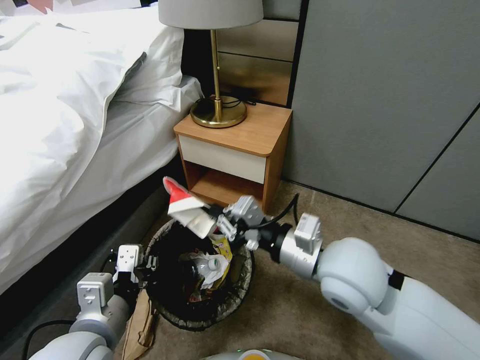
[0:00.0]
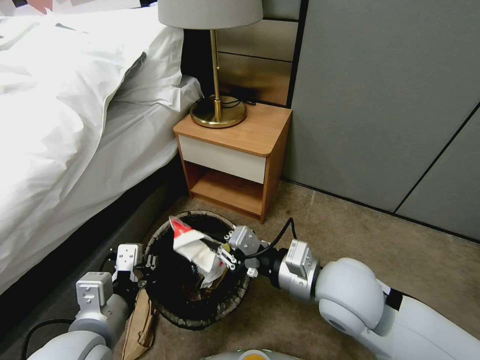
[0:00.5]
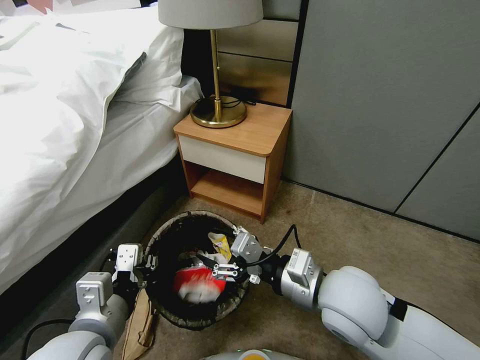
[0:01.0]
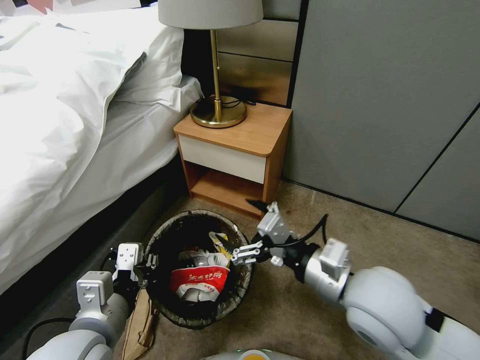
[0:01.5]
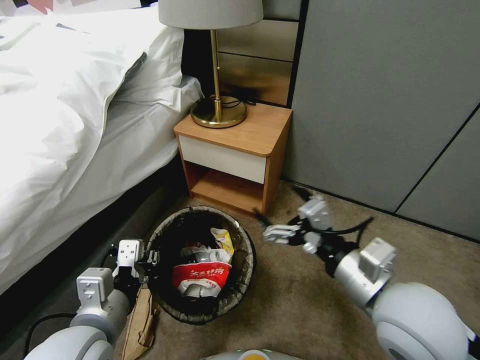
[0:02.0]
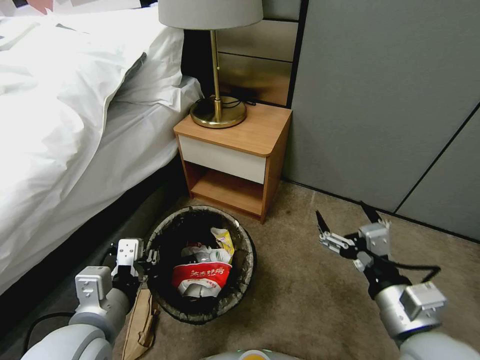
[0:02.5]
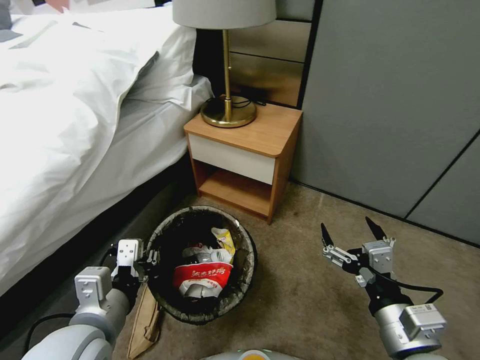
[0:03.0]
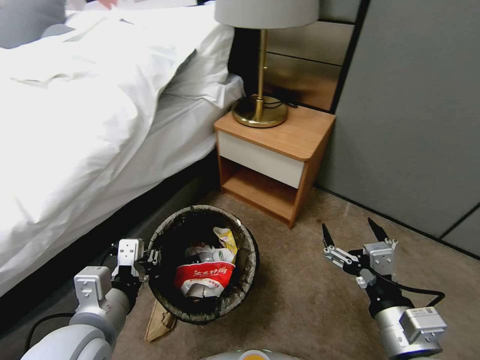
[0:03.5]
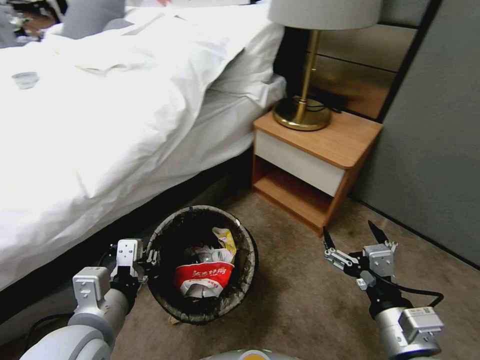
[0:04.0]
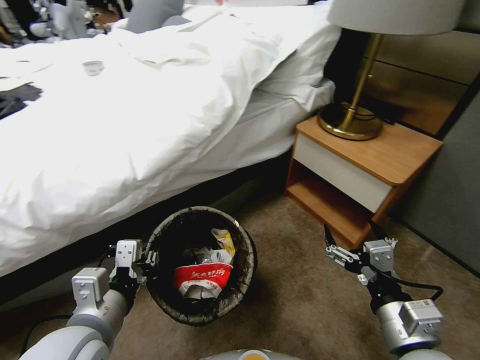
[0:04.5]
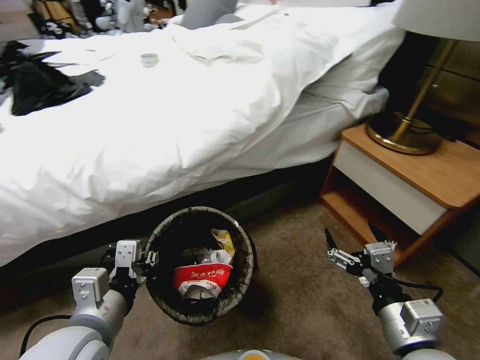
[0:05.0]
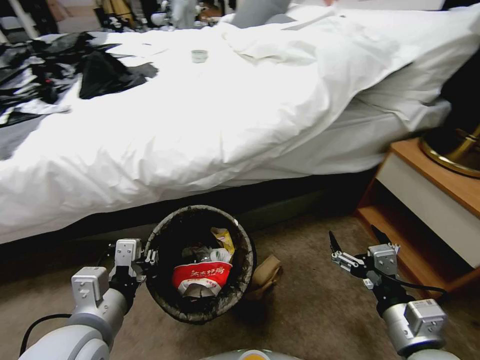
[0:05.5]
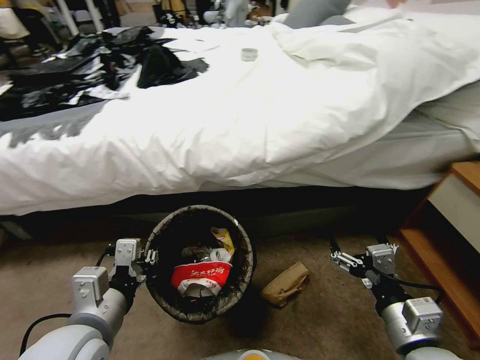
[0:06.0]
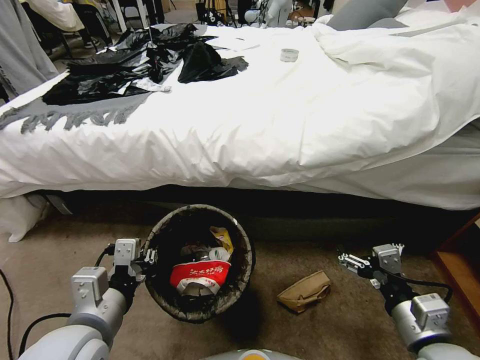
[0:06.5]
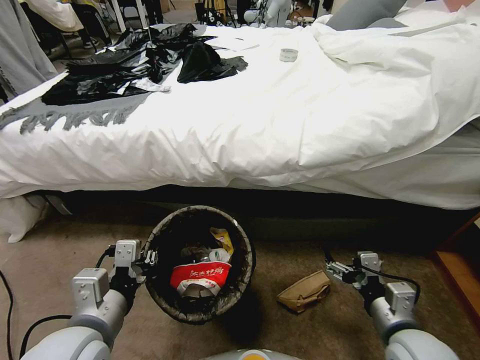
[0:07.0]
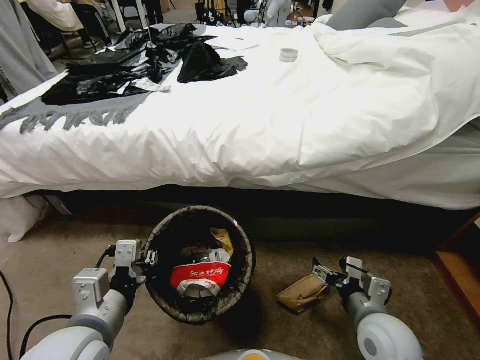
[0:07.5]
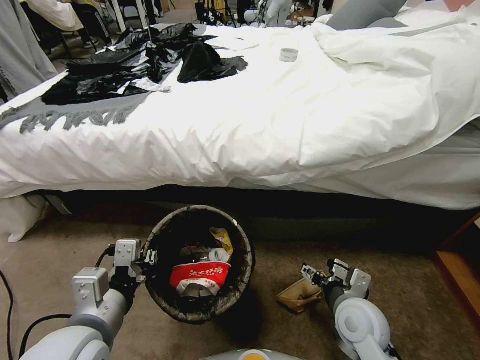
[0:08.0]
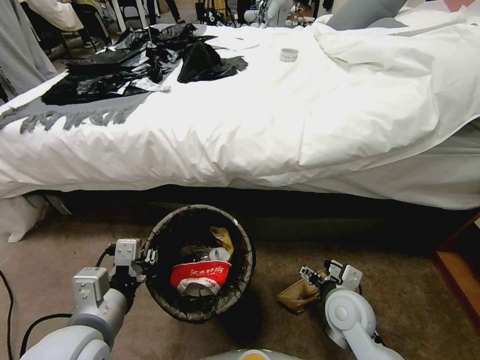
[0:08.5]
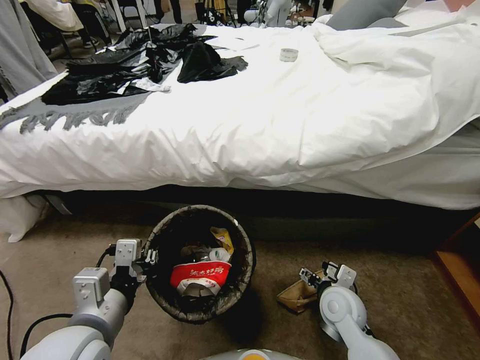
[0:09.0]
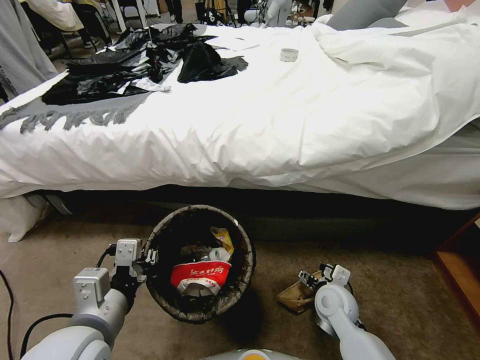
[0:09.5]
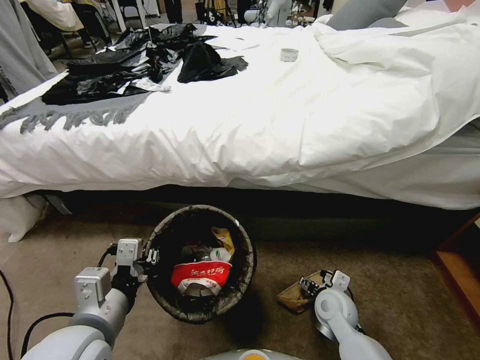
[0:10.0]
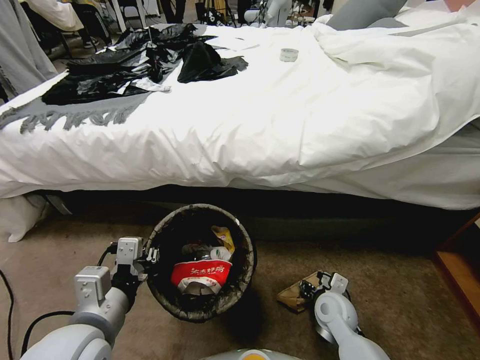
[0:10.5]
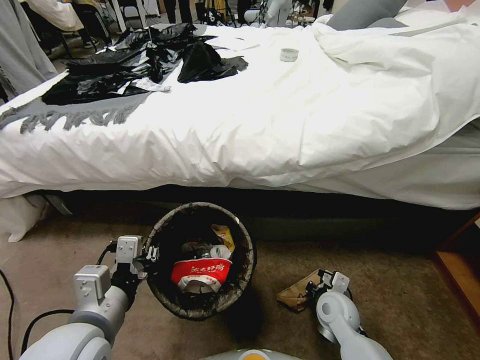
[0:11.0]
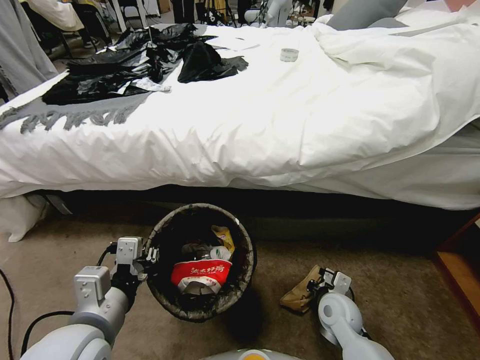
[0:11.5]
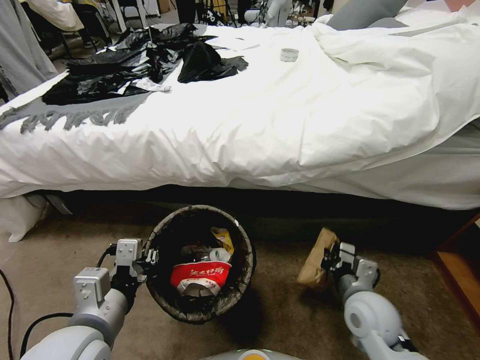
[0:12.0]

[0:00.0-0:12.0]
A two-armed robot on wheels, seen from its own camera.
Task of the whole recording: Pick up the trash bin, then pick up the garbage from the floor and place it into the trash bin.
0:00.0 to 0:02.0: The right gripper shifts roughly 10 cm backward and to the right, and opens up.
0:02.0 to 0:04.0: The right gripper is displaced downward and backward by about 10 cm.
0:06.0 to 0:08.0: The right gripper goes roughly 15 cm forward, downward and to the left.
0:08.0 to 0:10.0: The right gripper heads downward, covering about 10 cm.
0:10.0 to 0:12.0: The right gripper travels upward by about 10 cm, and closes up.

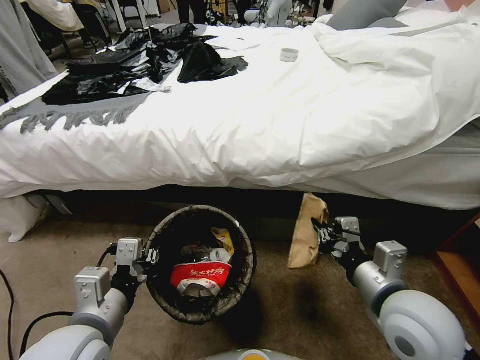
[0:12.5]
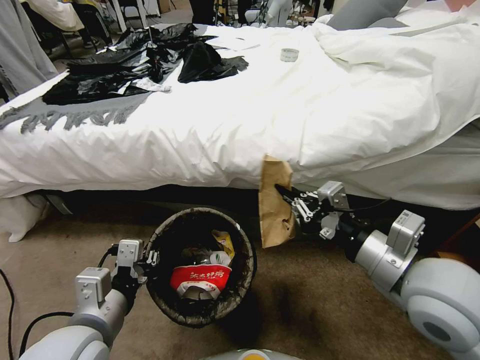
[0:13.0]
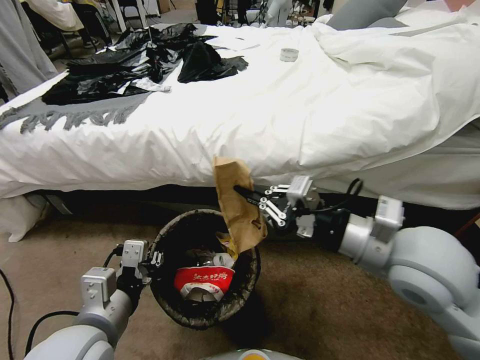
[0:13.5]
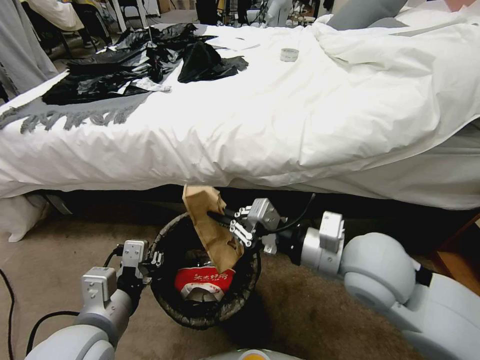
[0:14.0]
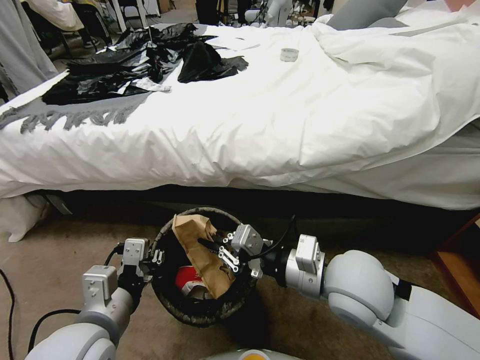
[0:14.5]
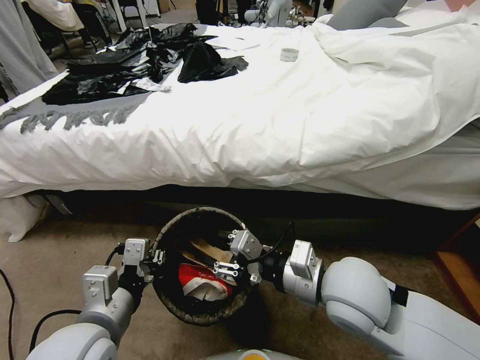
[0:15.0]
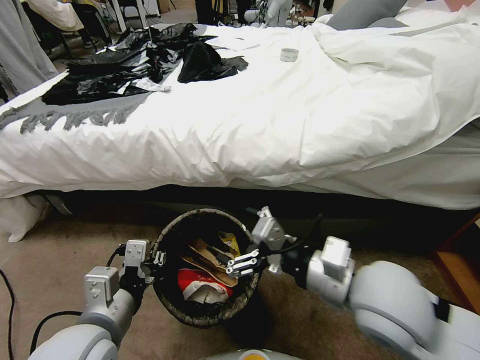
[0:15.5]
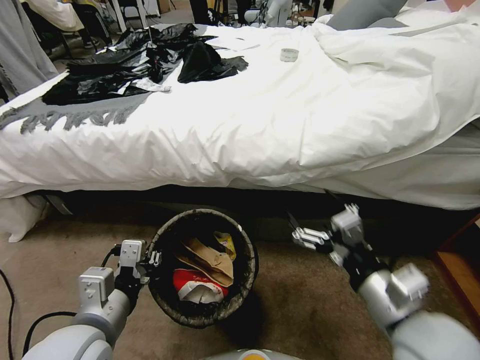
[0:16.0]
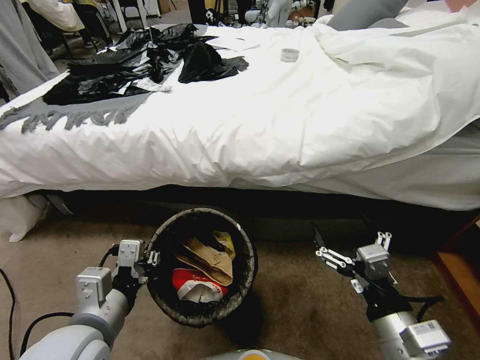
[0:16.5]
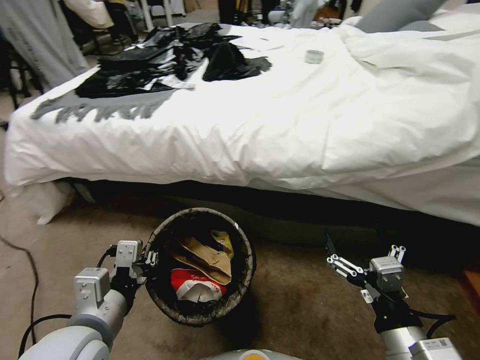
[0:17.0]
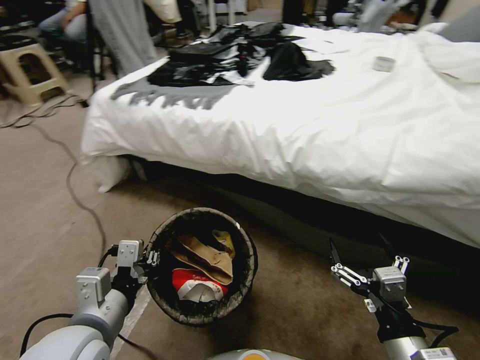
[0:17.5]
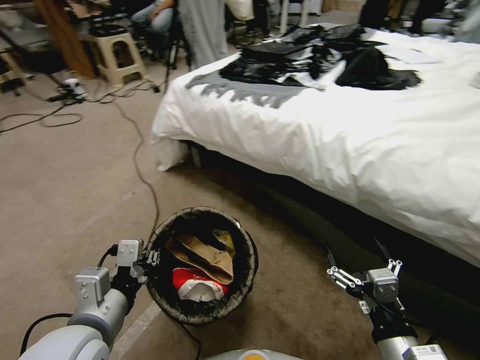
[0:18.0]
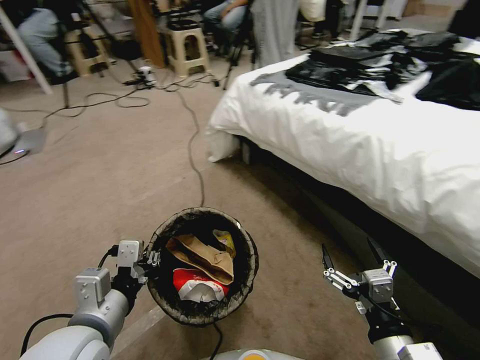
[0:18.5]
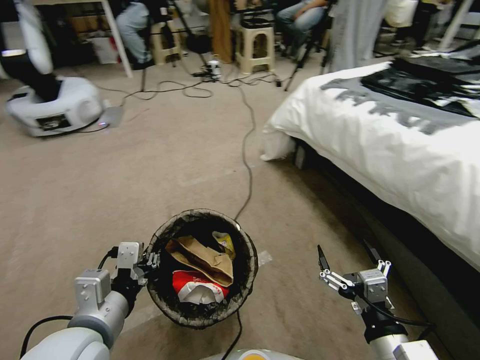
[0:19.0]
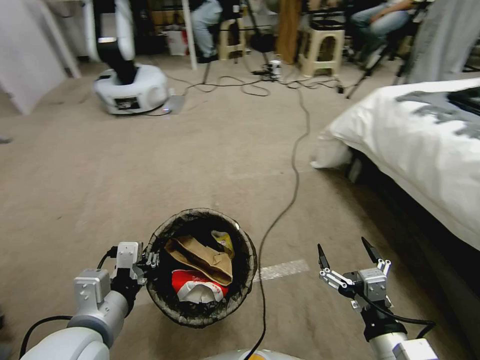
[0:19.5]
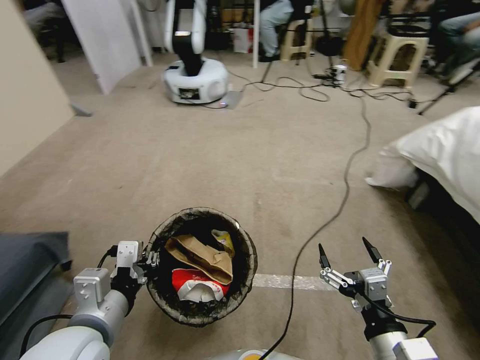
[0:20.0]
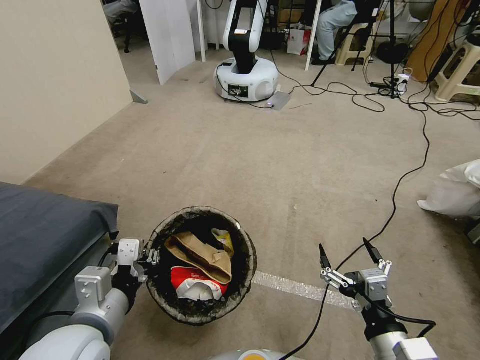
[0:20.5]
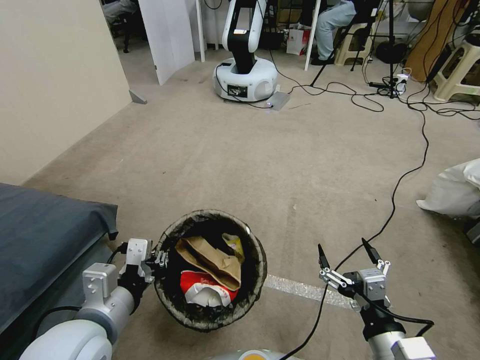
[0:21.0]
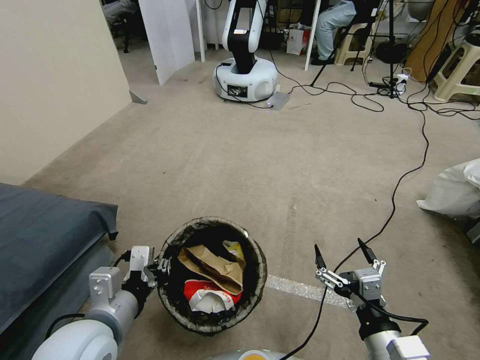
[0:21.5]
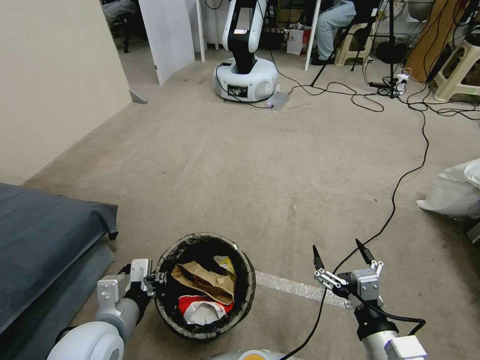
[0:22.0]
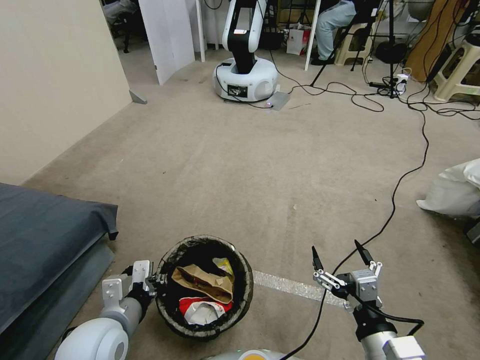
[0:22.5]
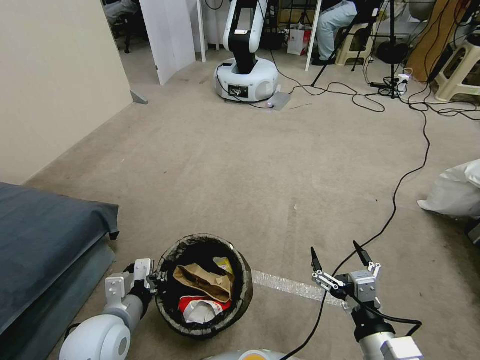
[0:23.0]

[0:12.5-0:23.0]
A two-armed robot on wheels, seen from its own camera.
Task of the whole recording: Pick up the trash bin, then pick up the garbage from the floor and place it into the trash bin.
0:12.5 to 0:14.5: The right gripper goes roughly 10 cm to the left, and reaches about 10 cm upward, then returns.
0:14.5 to 0:16.5: The right gripper is displaced backward, to the right and downward by some 15 cm, and opens up.
0:16.5 to 0:19.0: The right gripper shifts roughly 5 cm downward.
0:21.0 to 0:23.0: The left gripper is displaced downward by approximately 10 cm.

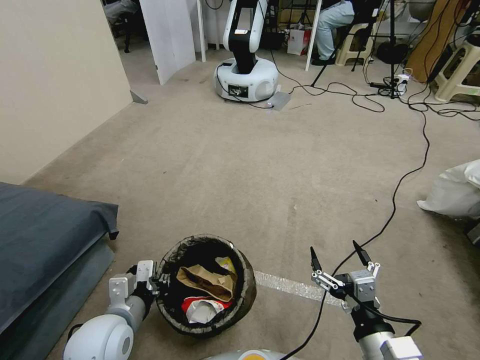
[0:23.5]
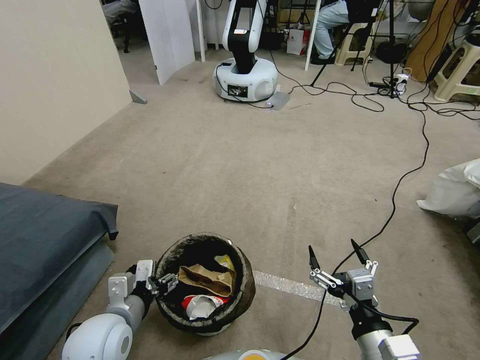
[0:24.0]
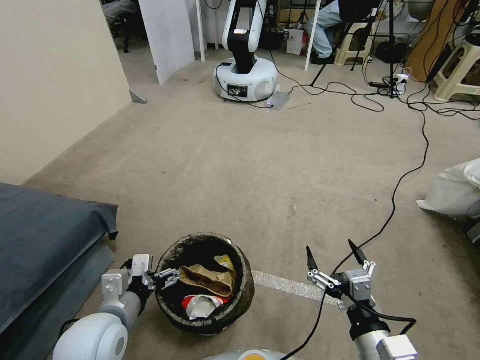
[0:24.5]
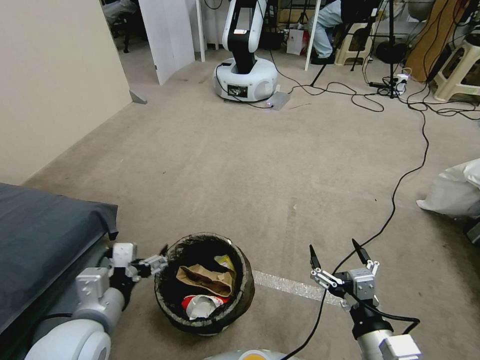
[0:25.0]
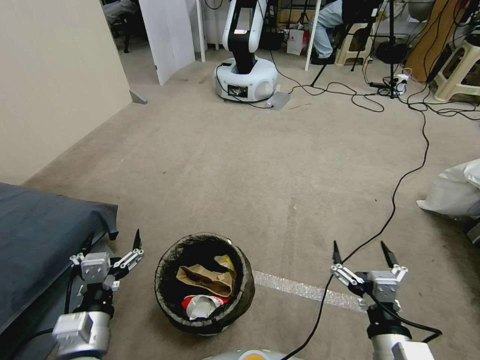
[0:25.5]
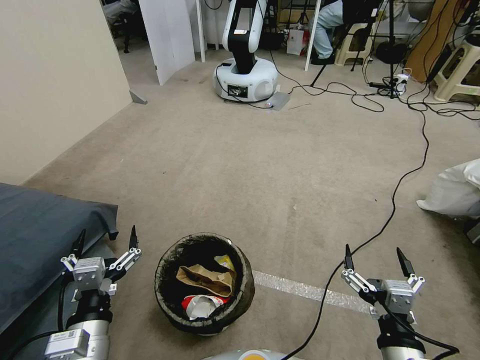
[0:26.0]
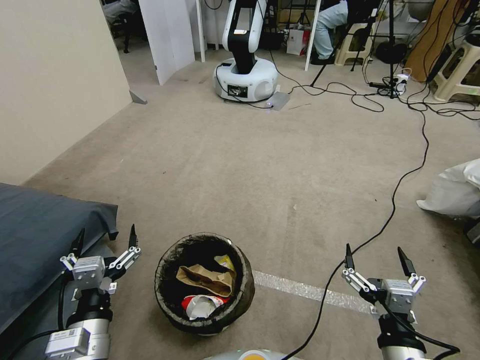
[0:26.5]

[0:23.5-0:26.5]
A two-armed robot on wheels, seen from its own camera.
Task of the whole recording: Pick up the trash bin, then pick up the garbage from the floor and place it into the trash bin.
0:23.5 to 0:25.0: The left gripper shifts approximately 5 cm upward, and opens up.
0:25.0 to 0:26.5: The left gripper shifts about 5 cm backward.
